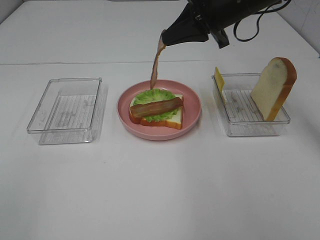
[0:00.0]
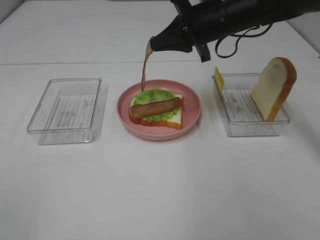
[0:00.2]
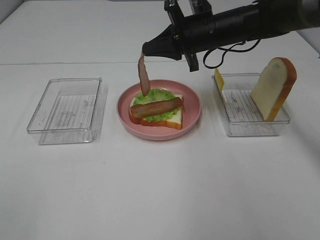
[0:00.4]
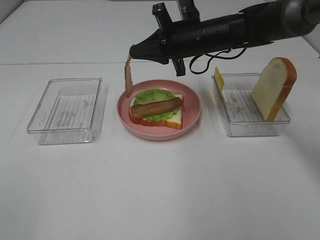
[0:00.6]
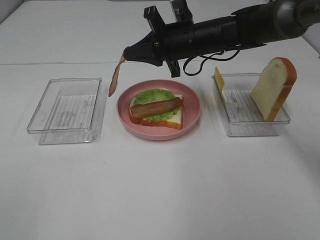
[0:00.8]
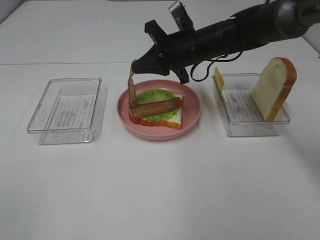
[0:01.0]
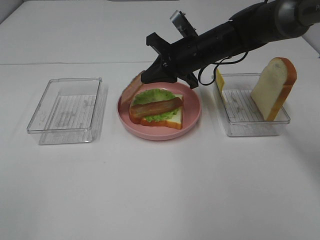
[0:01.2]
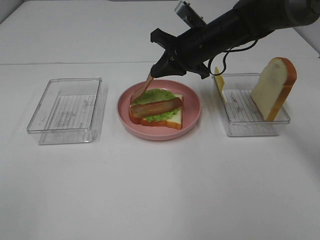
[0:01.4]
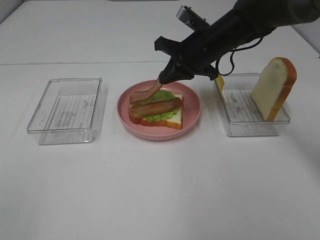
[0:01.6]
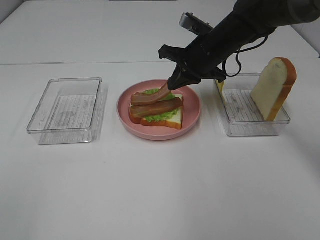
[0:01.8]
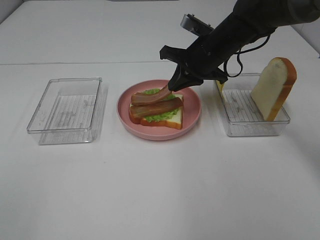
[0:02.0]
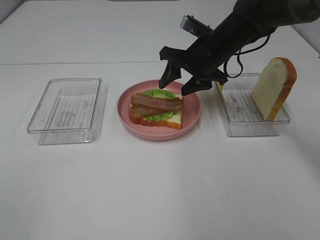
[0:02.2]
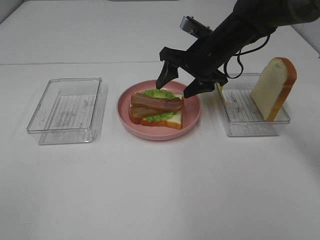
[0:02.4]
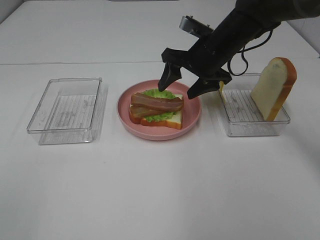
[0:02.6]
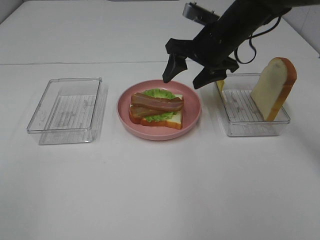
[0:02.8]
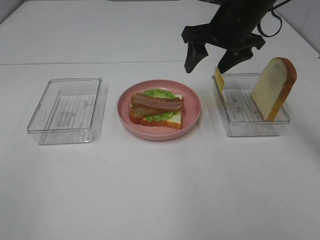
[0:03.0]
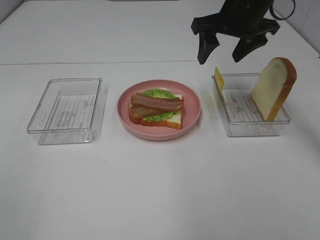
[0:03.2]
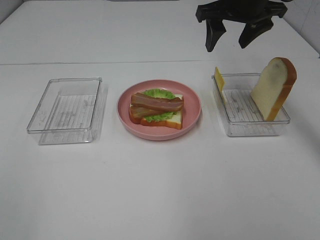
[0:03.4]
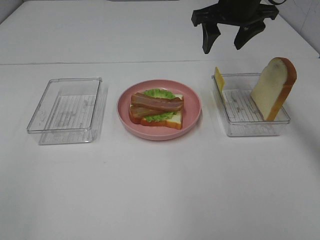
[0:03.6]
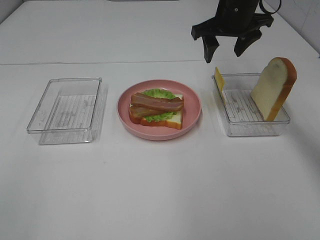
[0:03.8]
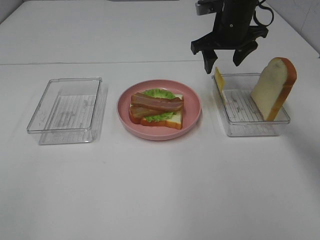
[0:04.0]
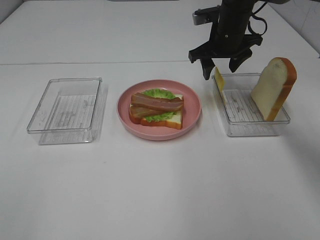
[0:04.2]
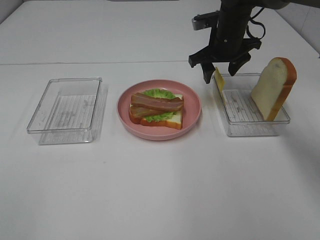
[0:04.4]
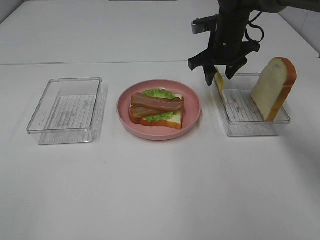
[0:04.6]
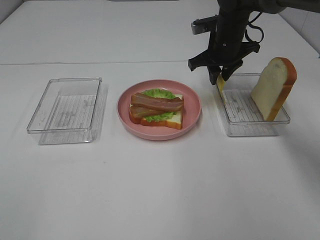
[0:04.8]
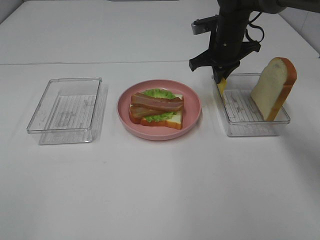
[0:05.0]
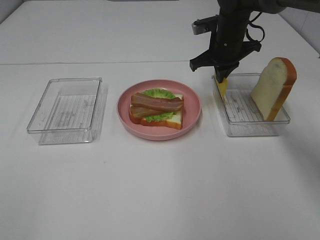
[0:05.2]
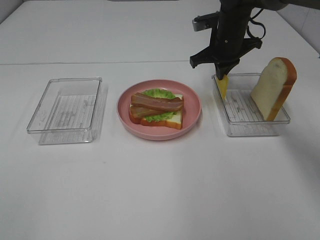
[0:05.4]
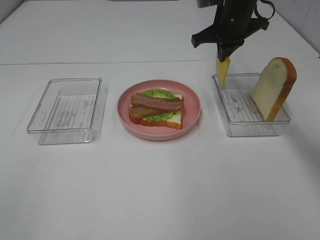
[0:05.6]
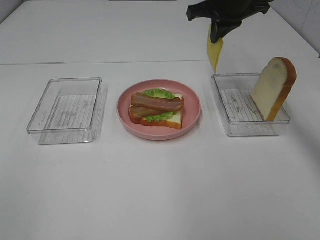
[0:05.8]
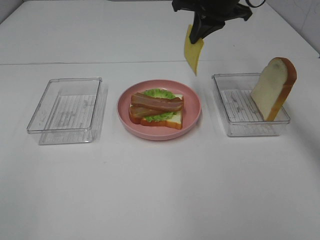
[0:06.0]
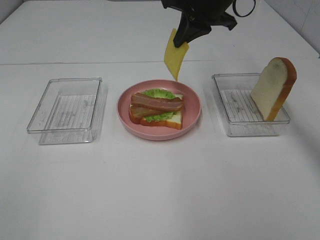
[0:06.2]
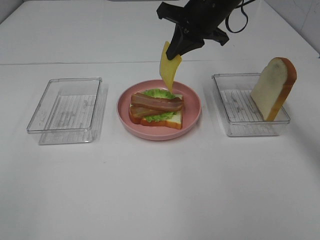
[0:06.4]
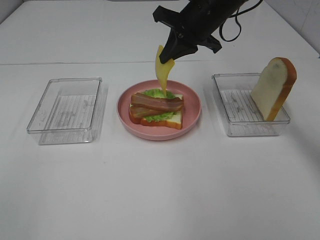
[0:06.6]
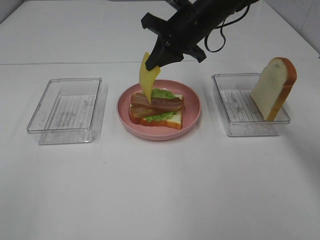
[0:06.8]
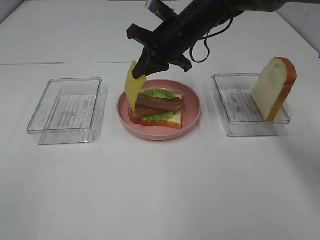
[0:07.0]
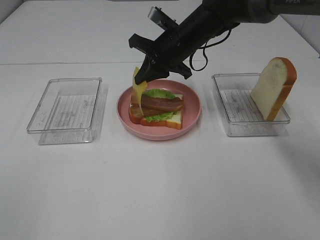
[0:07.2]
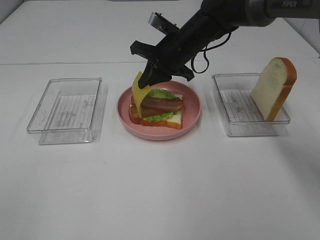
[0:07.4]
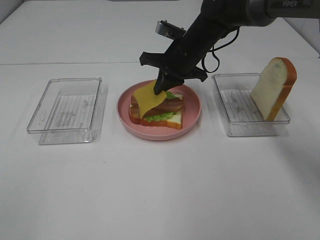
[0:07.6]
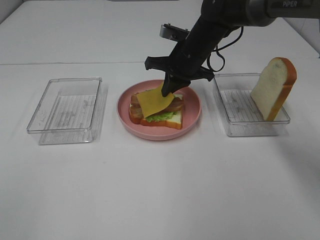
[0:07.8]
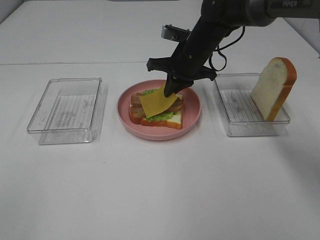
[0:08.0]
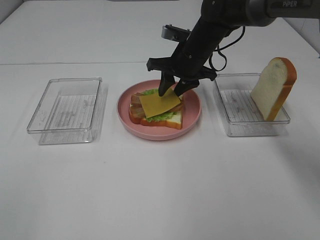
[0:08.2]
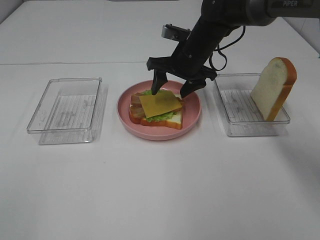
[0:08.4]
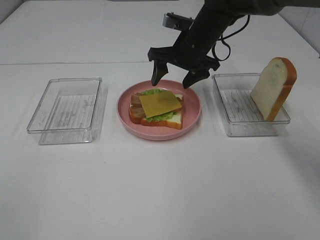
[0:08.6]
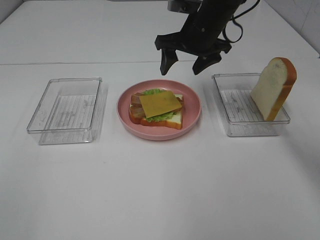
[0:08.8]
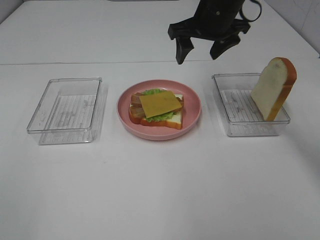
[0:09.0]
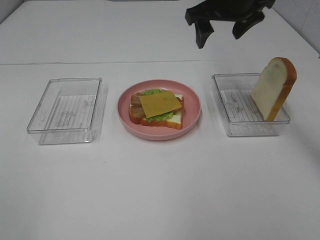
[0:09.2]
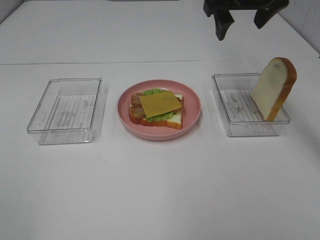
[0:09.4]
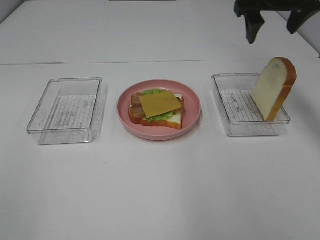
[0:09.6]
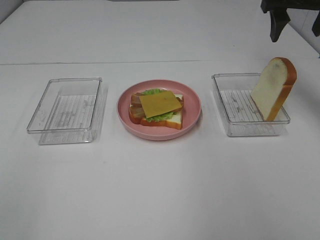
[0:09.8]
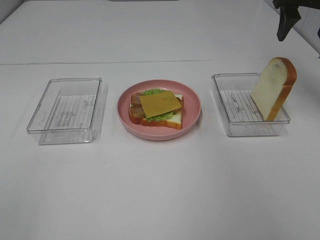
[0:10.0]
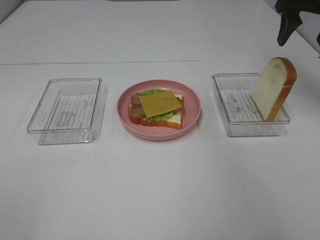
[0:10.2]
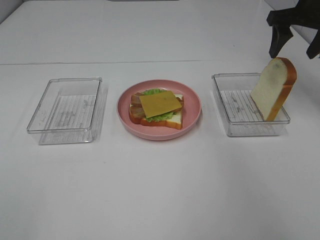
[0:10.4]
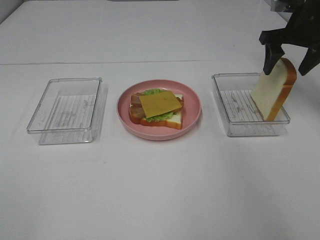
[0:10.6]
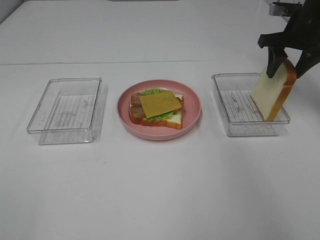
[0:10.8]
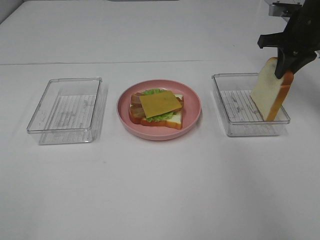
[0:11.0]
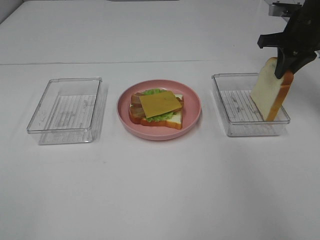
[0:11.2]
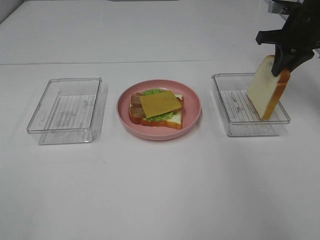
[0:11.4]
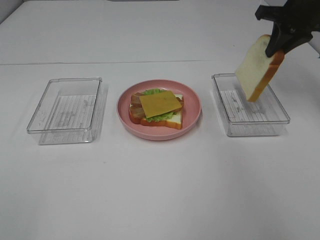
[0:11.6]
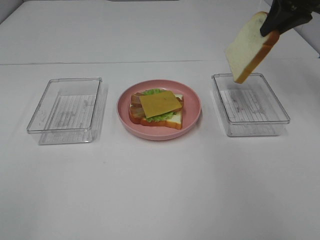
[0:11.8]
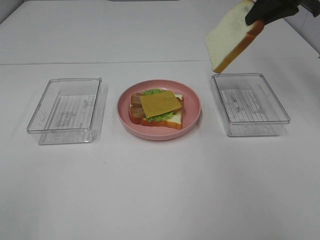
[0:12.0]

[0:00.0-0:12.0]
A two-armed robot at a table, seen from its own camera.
Task of the whole recording: Make sandwiches.
Step, 0.0 to 2.4 s: Right hand:place bacon on bacon.
Step, 2.6 to 5.4 s: Right hand:grab the cheese slice.
Step, 5.6 to 8.4 s: Right hand:place the cheese slice on top of the bacon.
Step, 8.6 to 11.0 s: Right hand:grab the bread slice.
0.0 to 1.6 s: The right gripper moves downward, approximately 10 cm.
1.6 to 3.0 s: The right gripper moves upward, roughly 5 cm, and opens its fingers.
3.0 to 4.4 s: The right gripper travels forward and downward by approximately 10 cm.
4.4 to 6.0 s: The right gripper travels upward by approximately 10 cm, and closes up.
6.0 to 7.6 s: The right gripper is displaced downward by some 10 cm.
7.6 to 9.0 s: The right gripper heads upward, covering roughly 10 cm, and opens up.
9.0 to 10.4 s: The right gripper goes roughly 20 cm to the right.
10.4 to 12.0 s: The right gripper is displaced upward by about 5 cm, and closes its fingers.

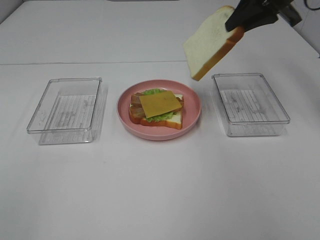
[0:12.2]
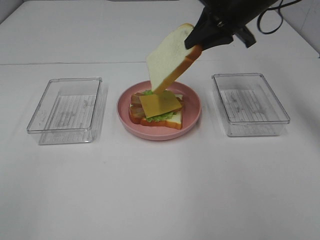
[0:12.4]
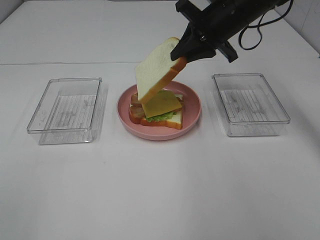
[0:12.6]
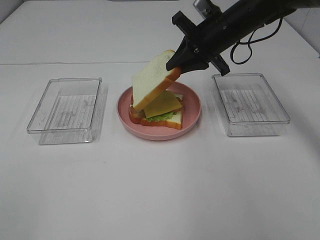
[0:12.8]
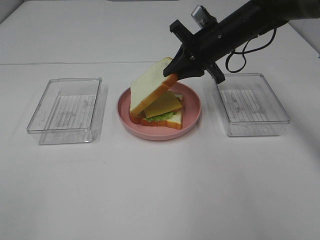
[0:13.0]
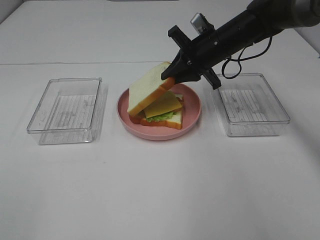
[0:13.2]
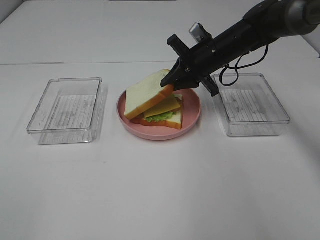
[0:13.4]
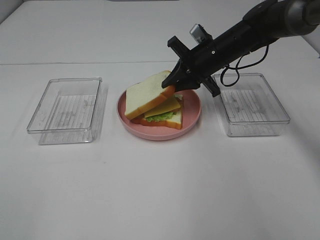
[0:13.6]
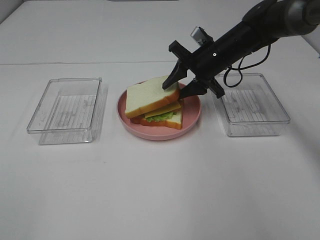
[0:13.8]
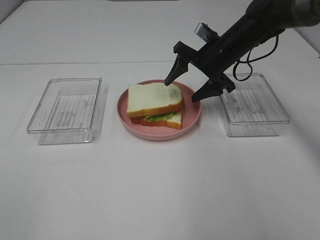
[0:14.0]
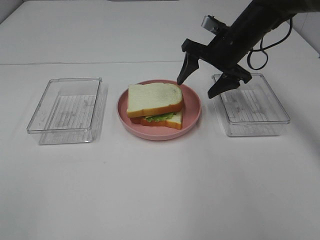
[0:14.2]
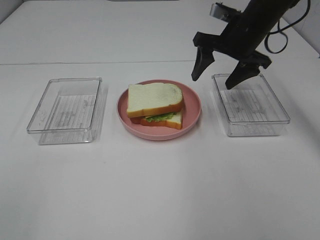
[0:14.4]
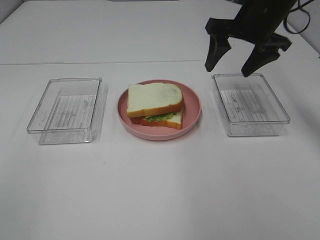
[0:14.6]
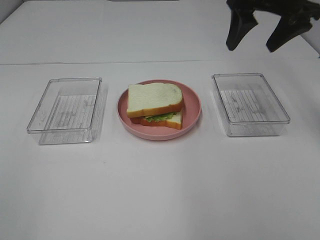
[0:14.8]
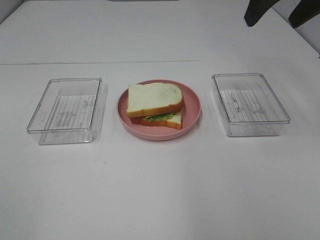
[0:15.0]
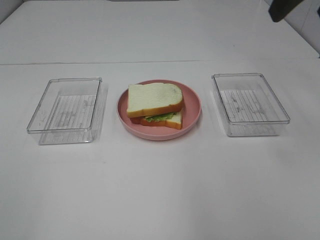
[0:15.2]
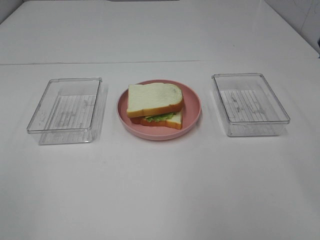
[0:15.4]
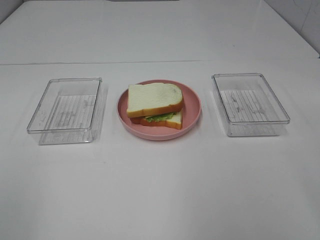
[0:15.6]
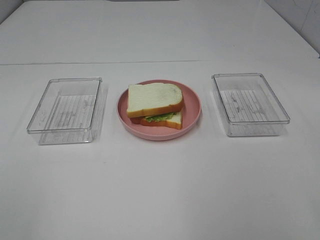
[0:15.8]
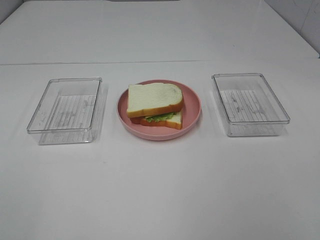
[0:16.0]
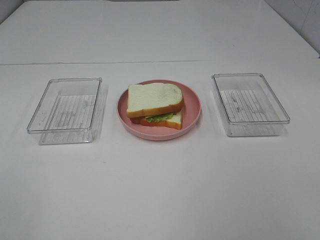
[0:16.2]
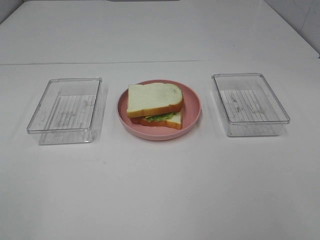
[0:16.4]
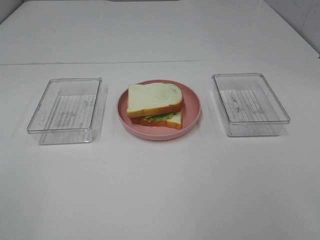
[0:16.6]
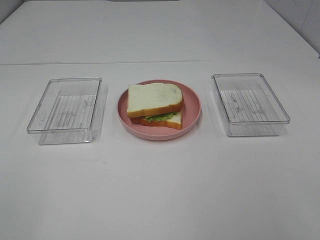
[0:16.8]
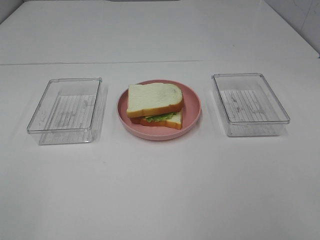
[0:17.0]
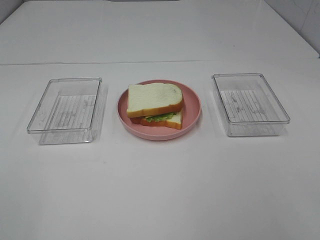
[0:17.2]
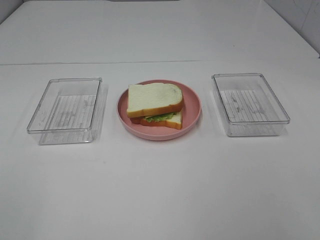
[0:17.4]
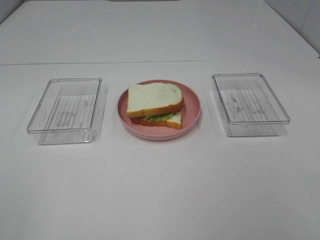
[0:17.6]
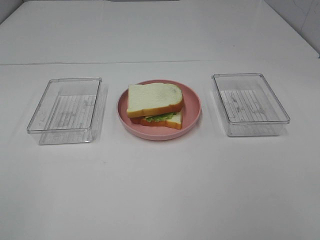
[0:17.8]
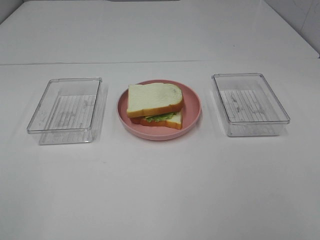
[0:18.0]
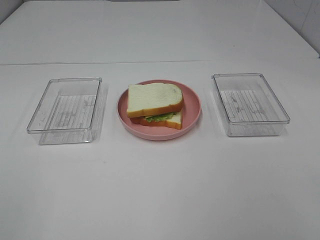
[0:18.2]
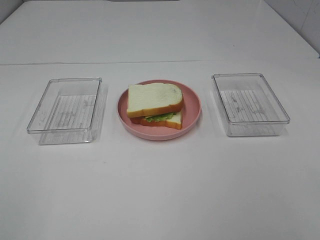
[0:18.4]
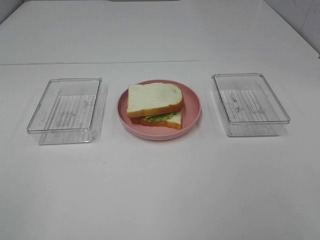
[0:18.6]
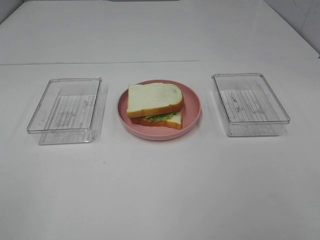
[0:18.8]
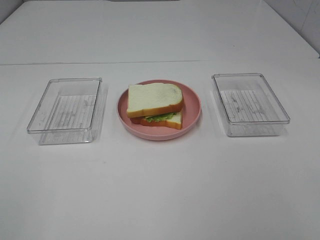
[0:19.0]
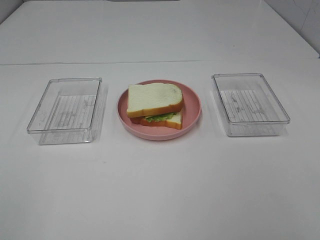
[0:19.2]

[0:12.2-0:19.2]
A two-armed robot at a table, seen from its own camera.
Task of the whole recording: Make sandwiches.
Step, 12.2 to 14.0 s: Right hand:place the bread slice on the cheese slice.
12.2 to 13.6 s: The right gripper travels downward and to the left by some 15 cm.
13.6 to 15.0 s: The right gripper travels upward and backward by roughly 25 cm, and opens.
15.0 to 16.4 s: The right gripper is displaced backward by approximately 35 cm.

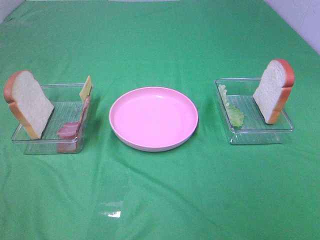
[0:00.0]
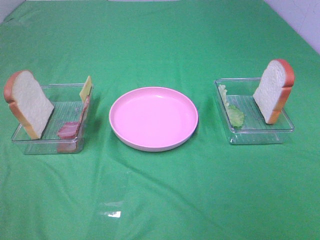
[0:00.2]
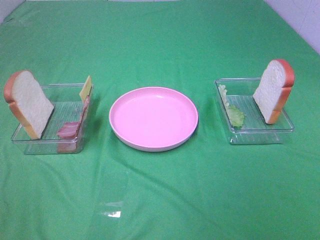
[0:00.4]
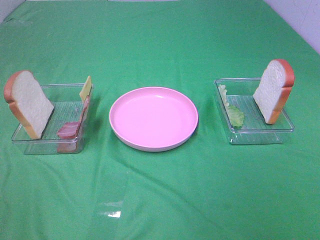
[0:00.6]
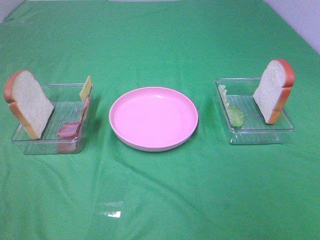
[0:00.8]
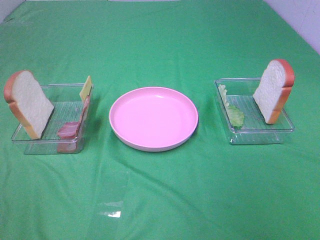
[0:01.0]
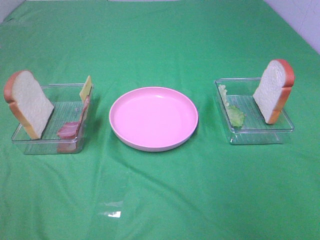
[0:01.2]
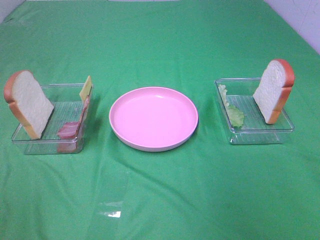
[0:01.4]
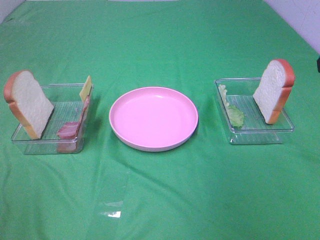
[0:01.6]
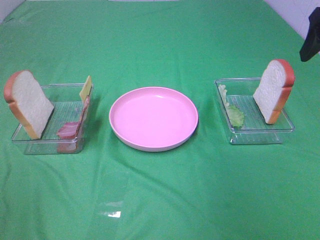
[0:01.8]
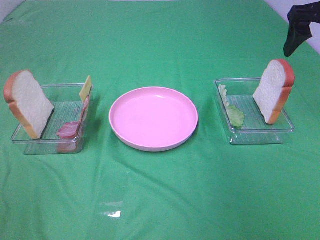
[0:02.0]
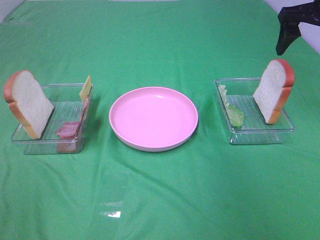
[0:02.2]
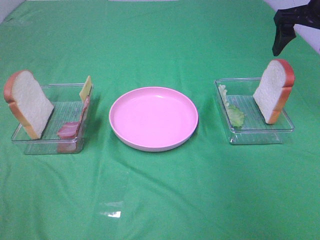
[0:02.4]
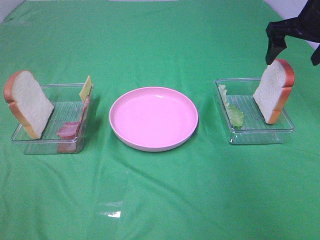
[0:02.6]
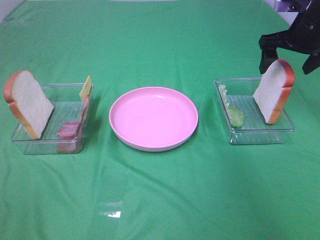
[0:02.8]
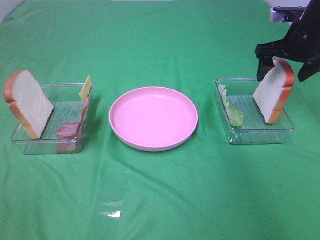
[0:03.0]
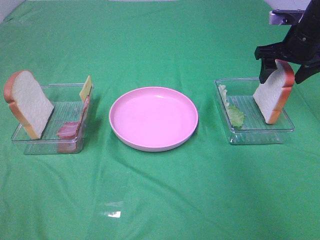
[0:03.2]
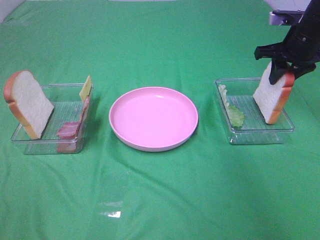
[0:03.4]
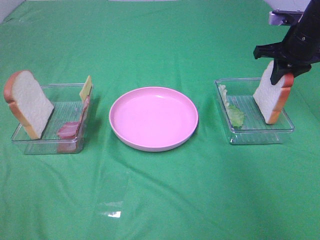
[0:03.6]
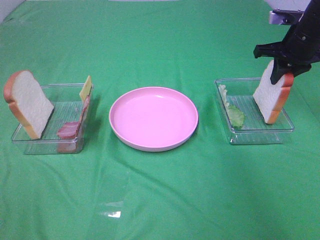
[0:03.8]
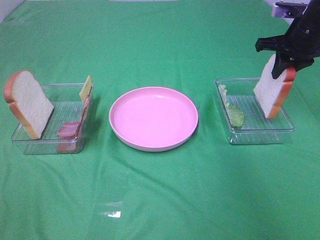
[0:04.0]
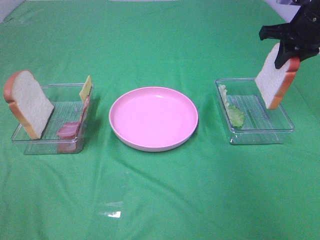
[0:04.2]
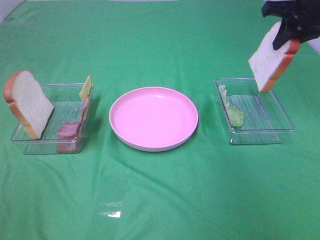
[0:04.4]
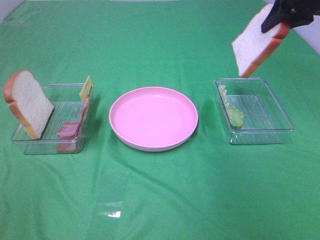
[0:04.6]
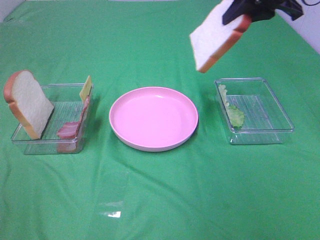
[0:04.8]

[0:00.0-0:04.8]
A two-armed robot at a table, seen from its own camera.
Task of the whole recording: Make sandwiches.
Step, 0.0 to 3.6 s: Right hand:grab the bread slice.
1.6 to 3.2 s: The right gripper is displaced forward and downward by some 25 cm.
3.2 to 4.8 s: The right gripper heads upward and to the left, covering approximately 15 cm, and closes.
